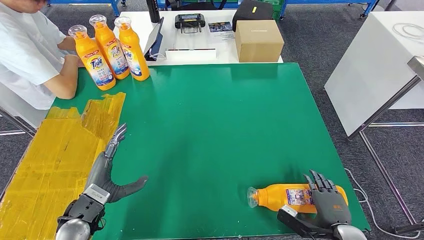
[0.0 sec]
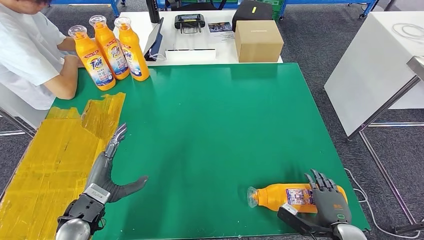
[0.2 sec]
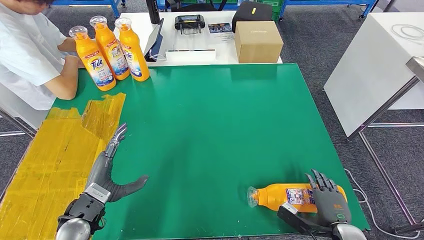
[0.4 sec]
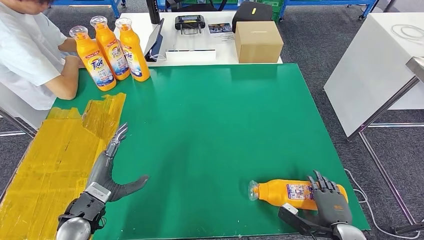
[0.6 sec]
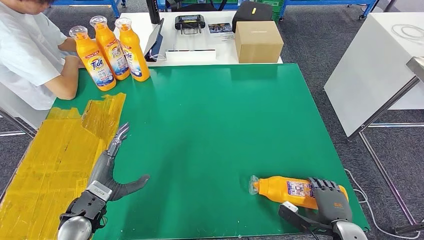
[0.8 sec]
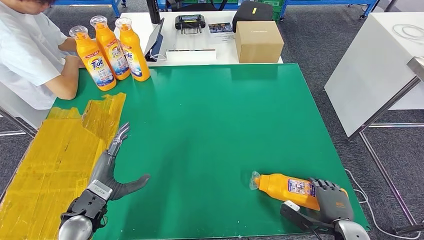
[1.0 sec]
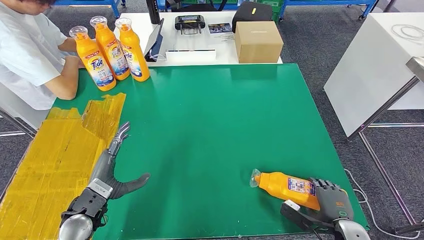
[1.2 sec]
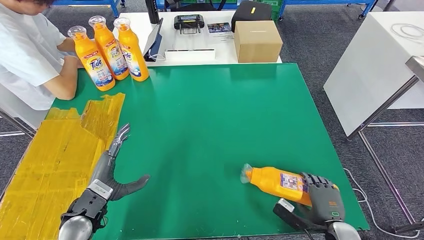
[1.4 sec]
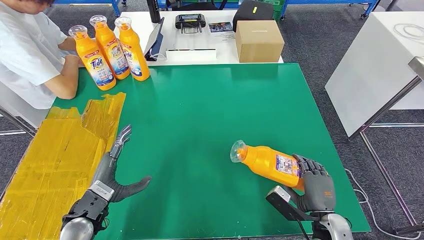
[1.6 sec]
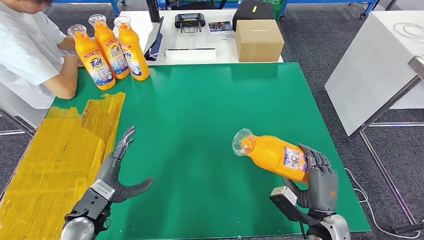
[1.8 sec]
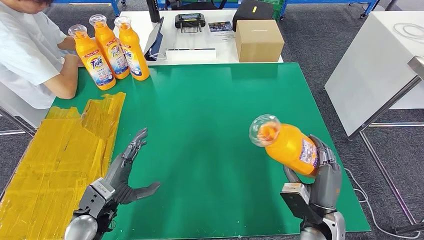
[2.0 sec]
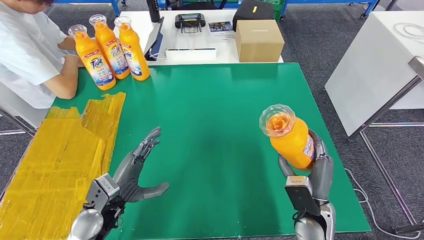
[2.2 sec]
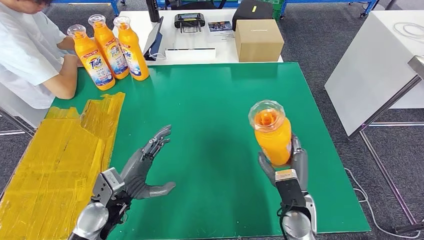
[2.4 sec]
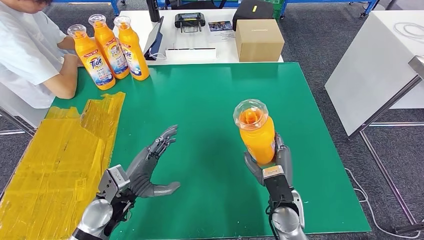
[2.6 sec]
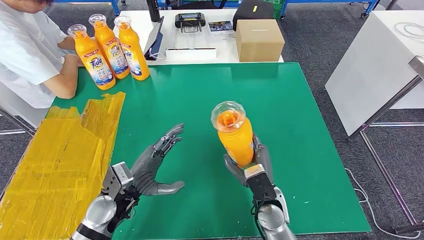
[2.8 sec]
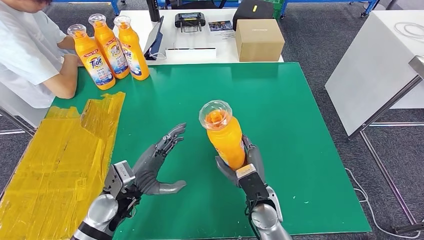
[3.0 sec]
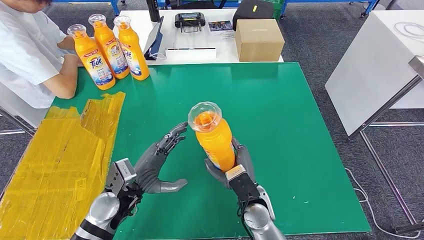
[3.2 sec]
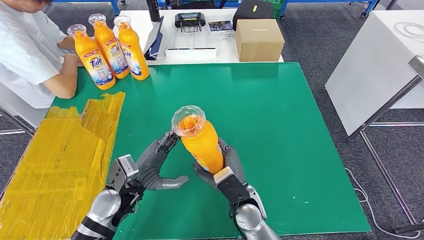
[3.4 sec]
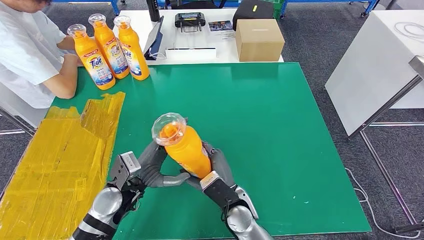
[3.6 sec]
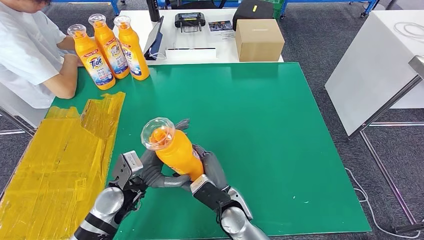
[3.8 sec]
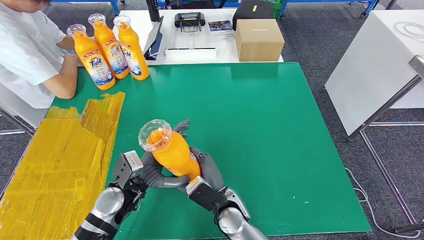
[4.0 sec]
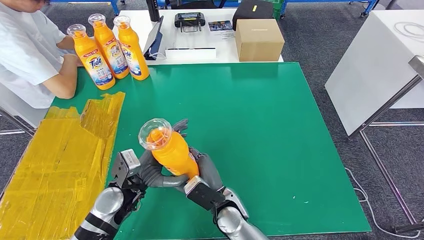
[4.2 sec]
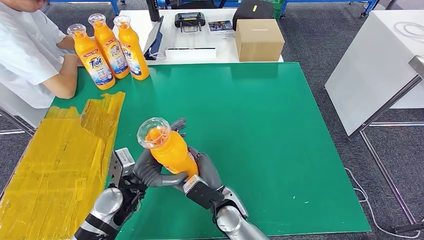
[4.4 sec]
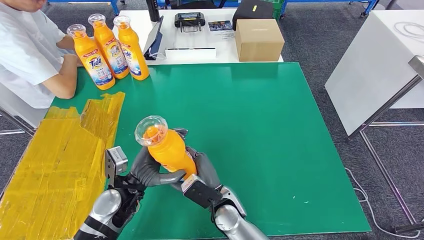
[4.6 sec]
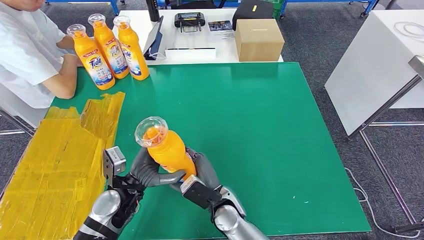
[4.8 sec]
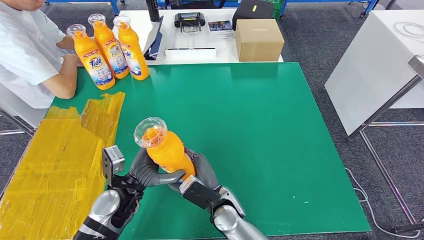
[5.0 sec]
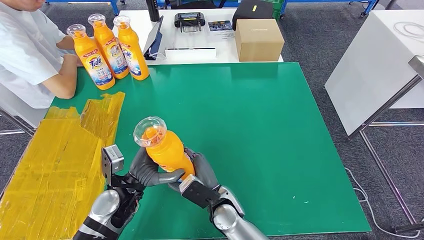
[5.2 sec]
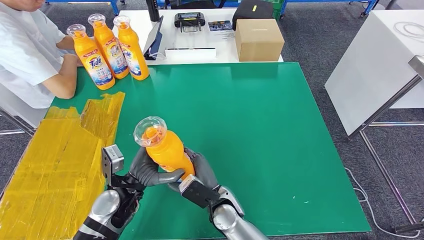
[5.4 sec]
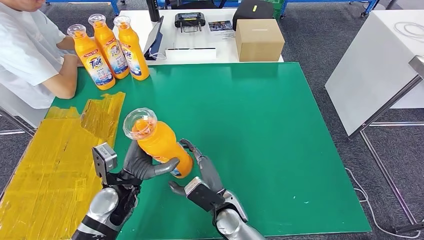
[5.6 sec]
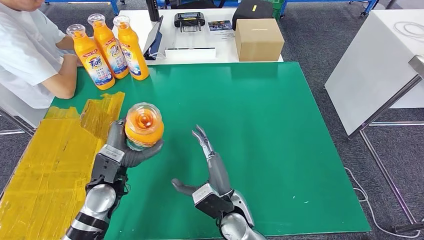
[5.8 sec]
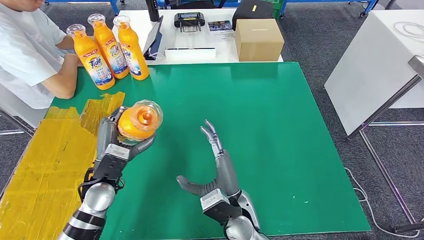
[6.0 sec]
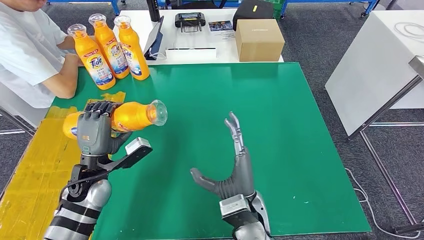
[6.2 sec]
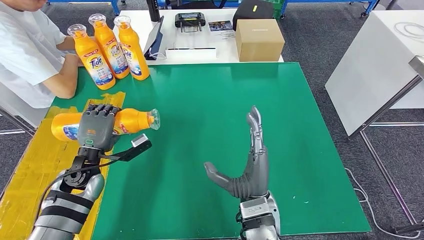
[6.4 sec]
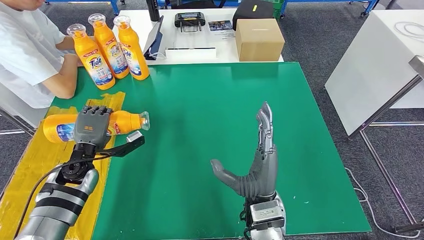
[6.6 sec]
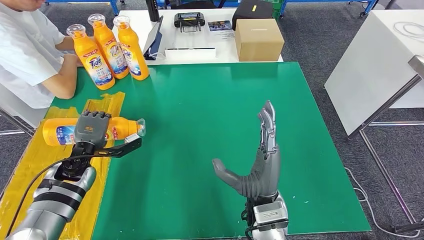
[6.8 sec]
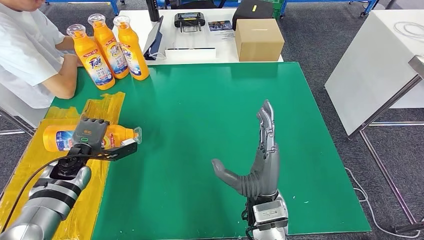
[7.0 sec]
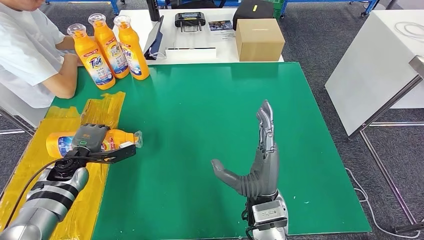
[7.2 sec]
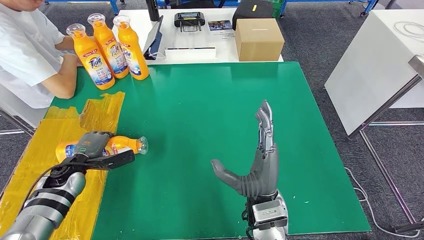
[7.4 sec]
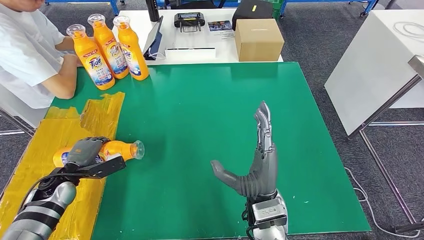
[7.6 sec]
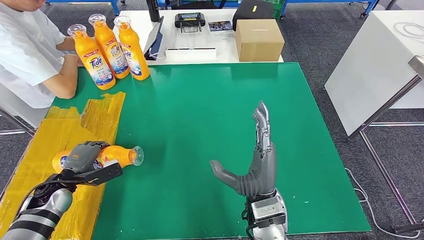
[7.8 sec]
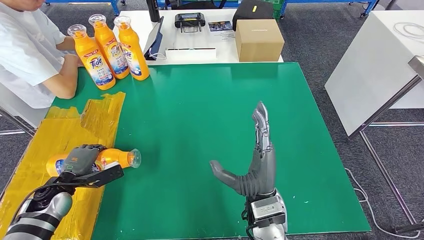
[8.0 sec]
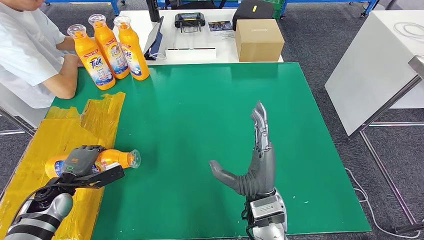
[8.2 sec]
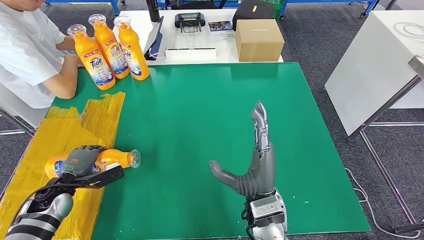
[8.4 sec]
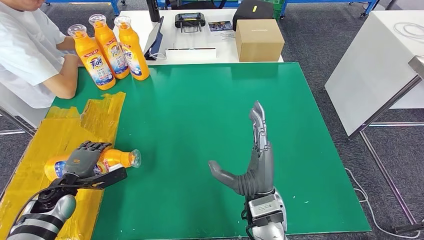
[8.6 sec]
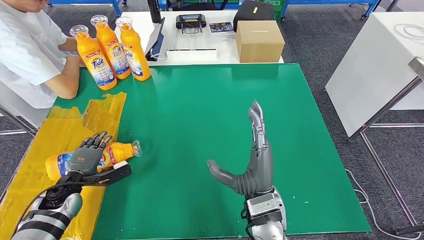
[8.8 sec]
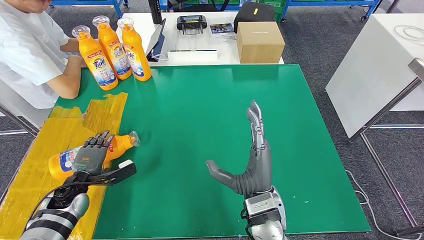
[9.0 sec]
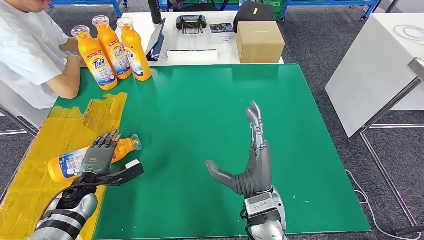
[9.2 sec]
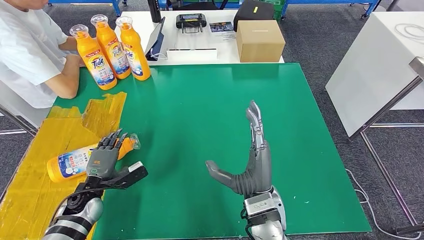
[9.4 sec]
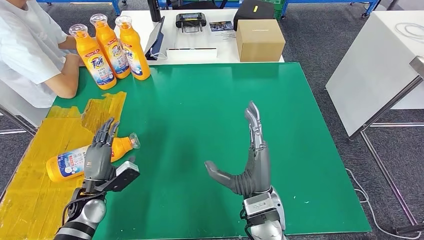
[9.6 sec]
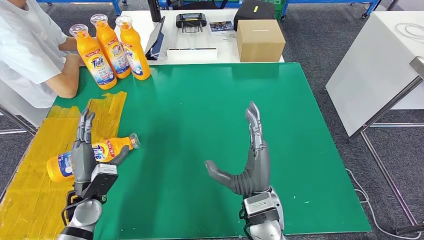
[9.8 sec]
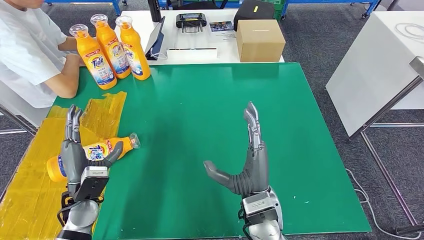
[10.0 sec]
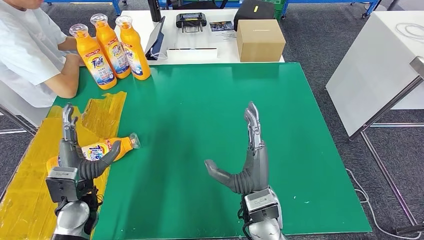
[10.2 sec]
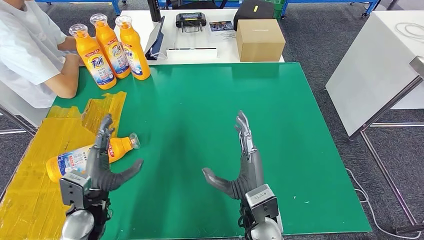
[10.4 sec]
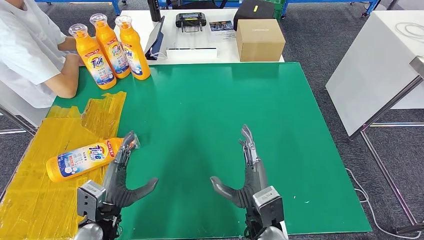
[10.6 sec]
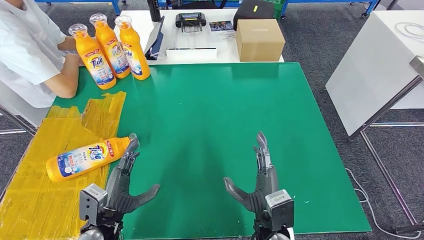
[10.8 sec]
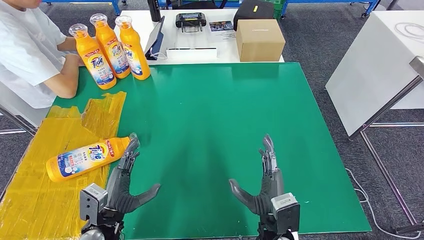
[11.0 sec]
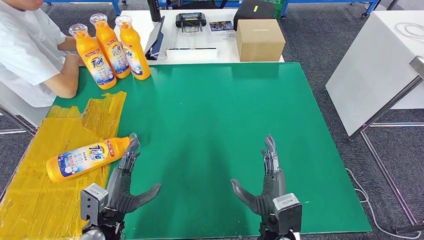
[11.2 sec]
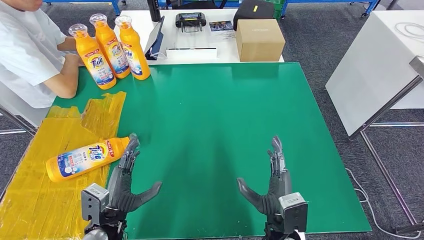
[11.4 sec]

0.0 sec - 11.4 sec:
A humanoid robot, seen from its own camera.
Step, 0.0 sec - 2.4 sec: Pick up the fast-moving consumer goods bottle from the table.
Step, 2.6 sec - 11.4 sec: Flip the fast-moving consumer goods bottle to the front side.
0.0 sec - 1.4 sec: There are only small adjustments of the hands.
2.8 sec - 4.2 sec: The right hand moves to the left, approximately 10 cm.
4.2 sec - 5.6 sec: The hands make only small movements.
5.6 sec - 7.2 sec: The right hand goes roughly 15 cm upward and to the right. Meanwhile the left hand moves to the left and forward, approximately 20 cm.
7.2 sec - 8.6 sec: The left hand heads backward, covering roughly 5 cm.
8.6 sec - 10.0 sec: The left hand goes roughly 10 cm to the right.
10.0 sec - 11.4 sec: The right hand heads downward and to the right, covering approximately 10 cm. Meanwhile the left hand is displaced to the right and backward by roughly 10 cm.
